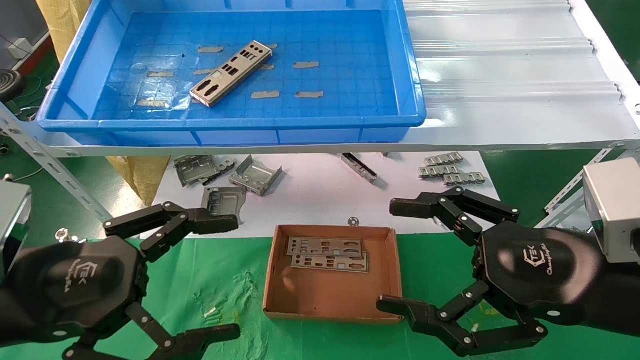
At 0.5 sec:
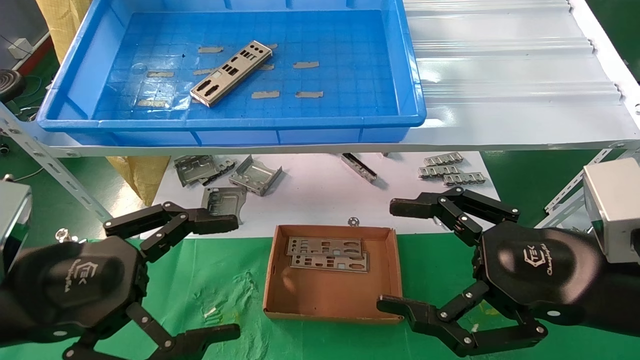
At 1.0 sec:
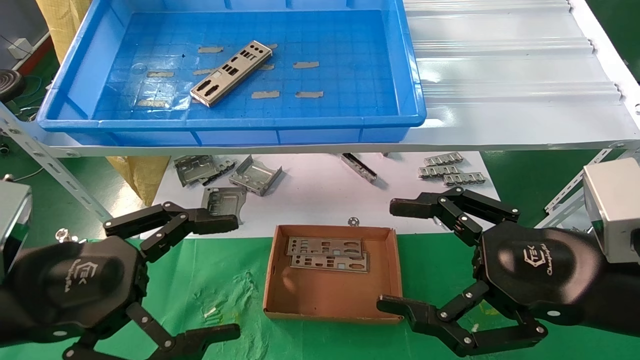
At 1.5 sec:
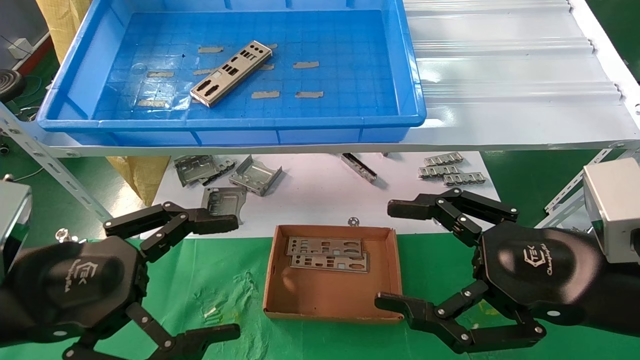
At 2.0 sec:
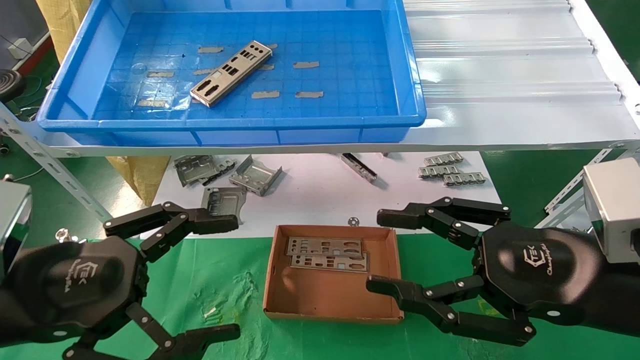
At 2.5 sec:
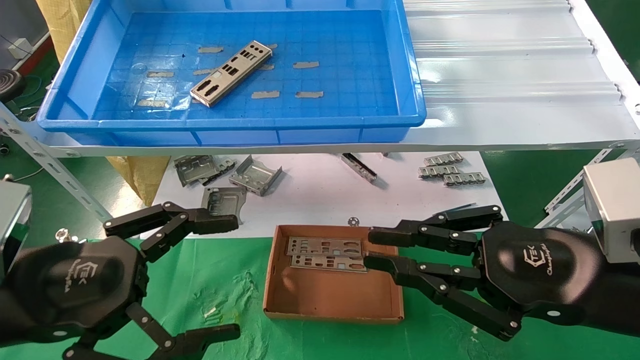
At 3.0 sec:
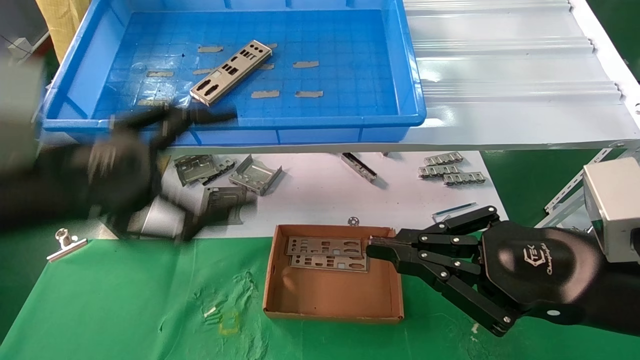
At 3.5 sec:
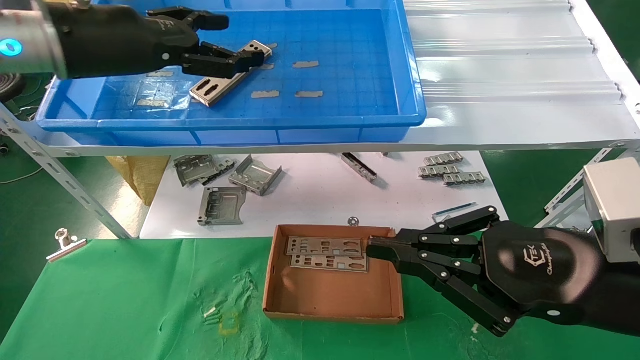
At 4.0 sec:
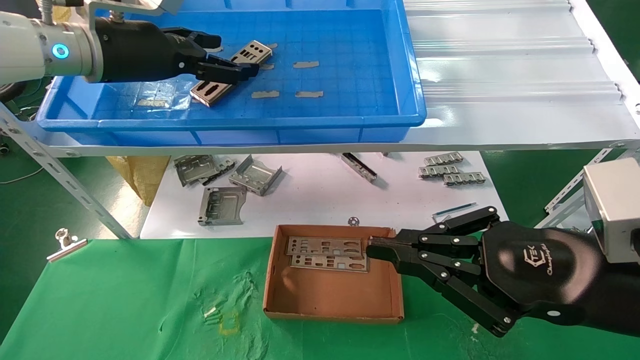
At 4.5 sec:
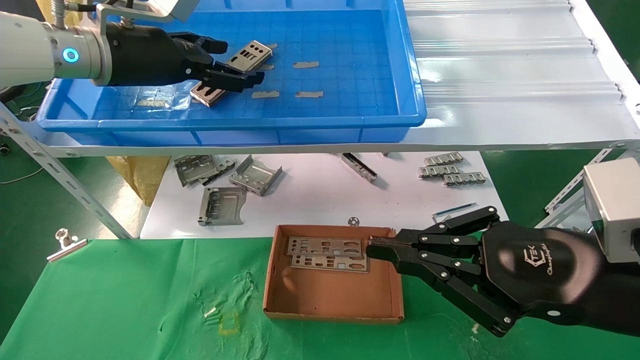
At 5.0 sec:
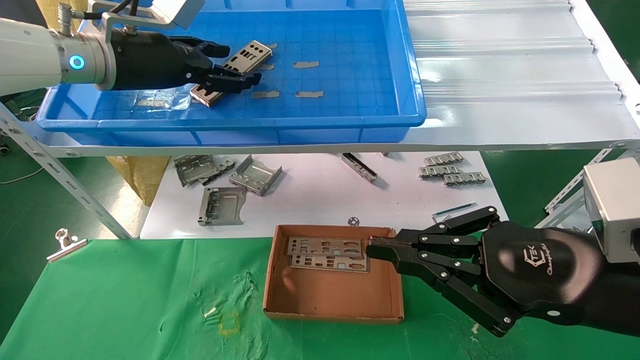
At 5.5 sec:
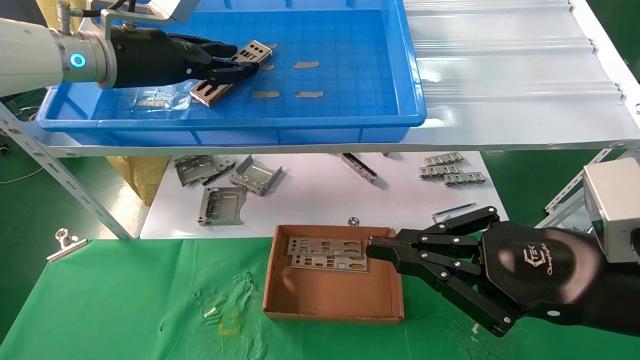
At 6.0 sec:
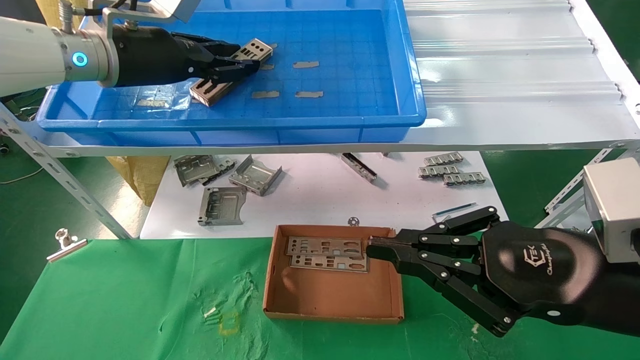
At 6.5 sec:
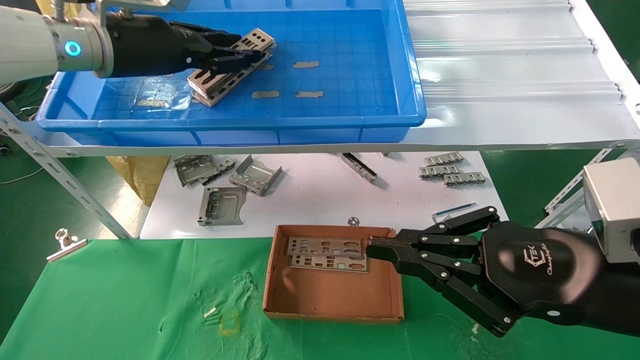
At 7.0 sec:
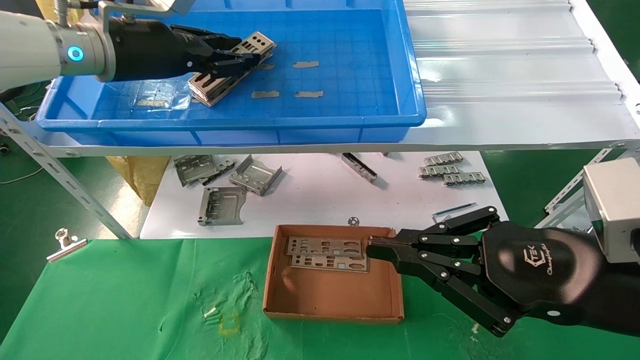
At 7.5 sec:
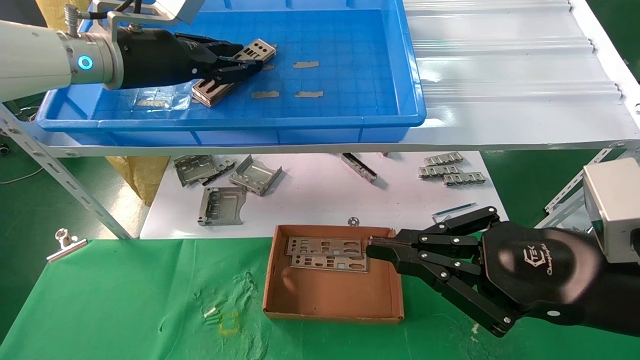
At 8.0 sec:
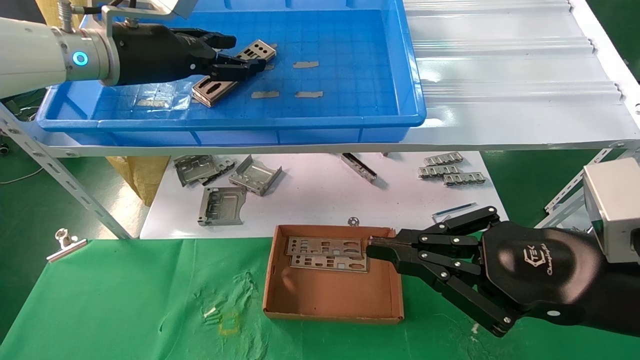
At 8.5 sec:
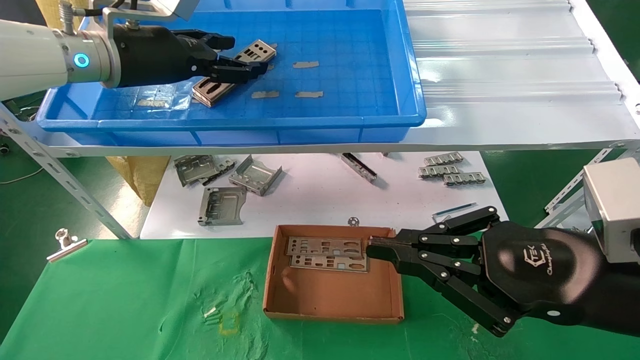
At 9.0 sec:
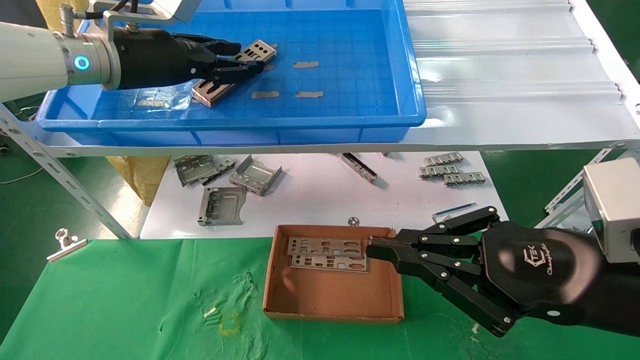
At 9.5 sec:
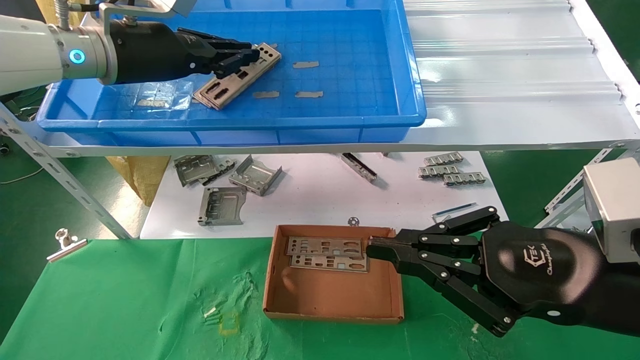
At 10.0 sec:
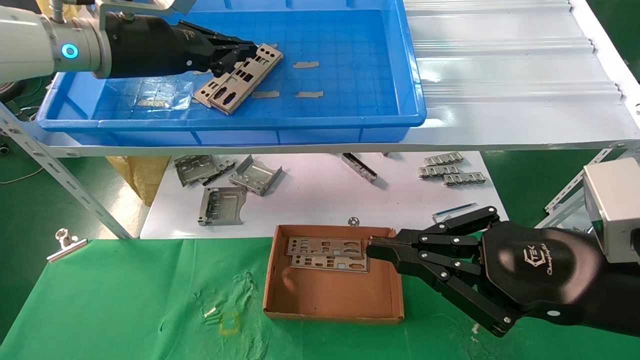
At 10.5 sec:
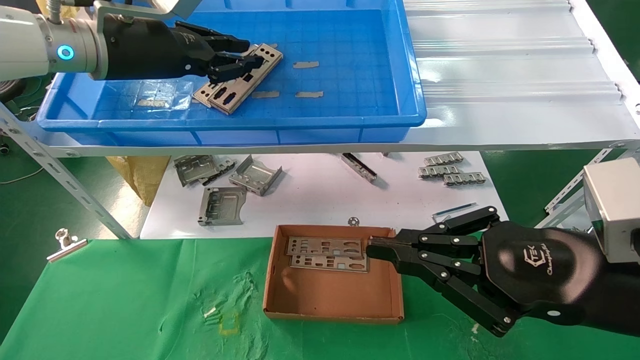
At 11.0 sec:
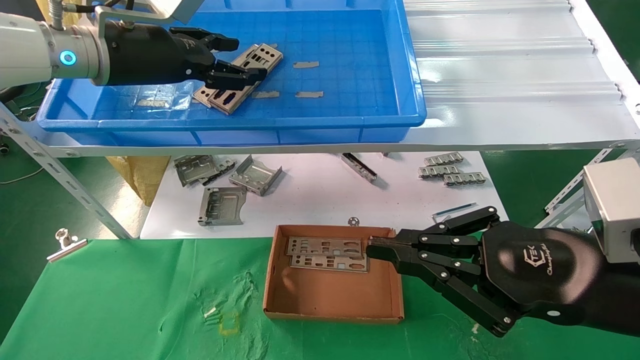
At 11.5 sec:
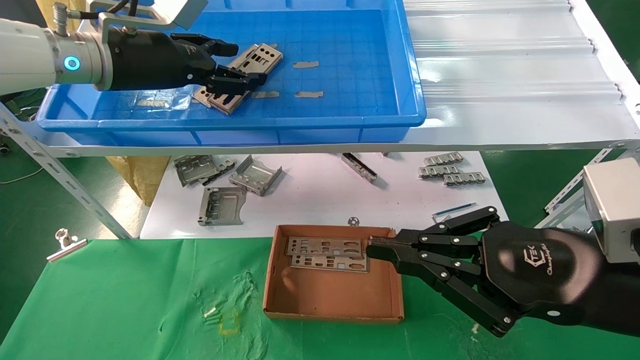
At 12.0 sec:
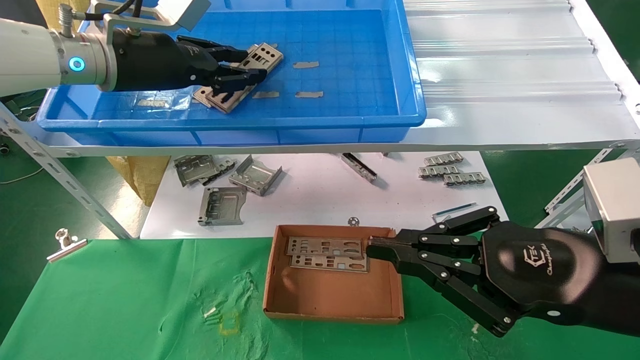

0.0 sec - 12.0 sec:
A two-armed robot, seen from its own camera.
Task of the whole recording: pick up the parts on the tray and put them in the cardboard box.
0.0 sec - 2.0 sec: The two grippers keep their place.
2.0 sec - 4.0 sec: The left gripper goes some 30 cm forward and upward; the right gripper closes up.
4.0 sec - 6.0 sec: The left gripper closes up.
6.0 sec - 8.0 sec: The grippers make only small movements.
8.0 sec - 10.0 sec: The left gripper closes.
10.0 sec - 12.0 sec: The left gripper opens.

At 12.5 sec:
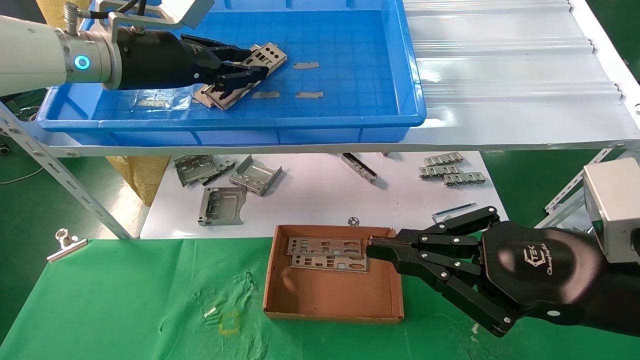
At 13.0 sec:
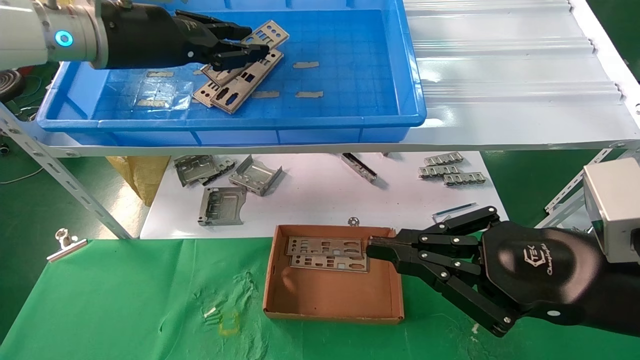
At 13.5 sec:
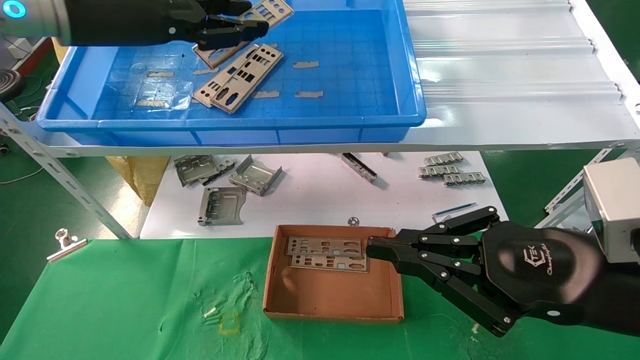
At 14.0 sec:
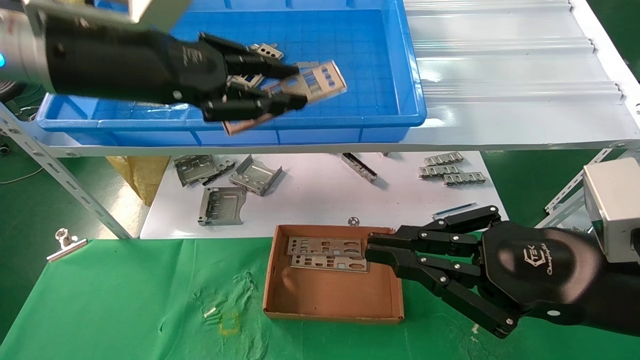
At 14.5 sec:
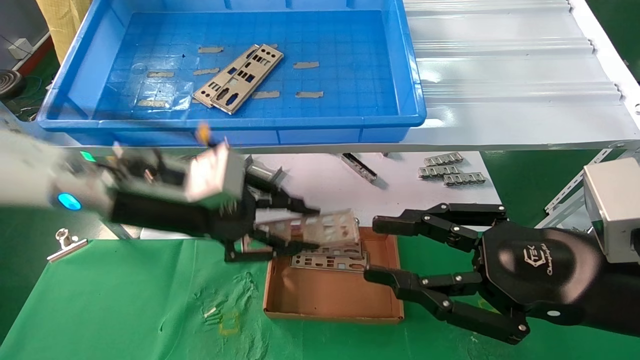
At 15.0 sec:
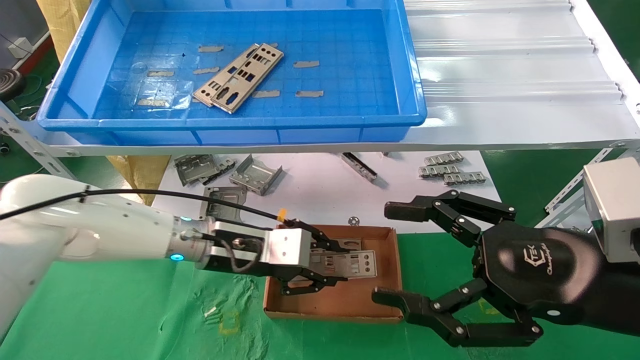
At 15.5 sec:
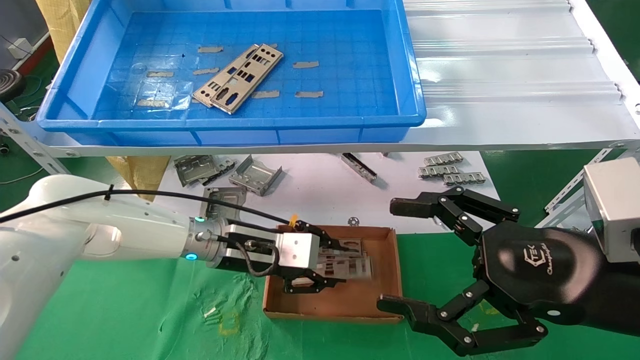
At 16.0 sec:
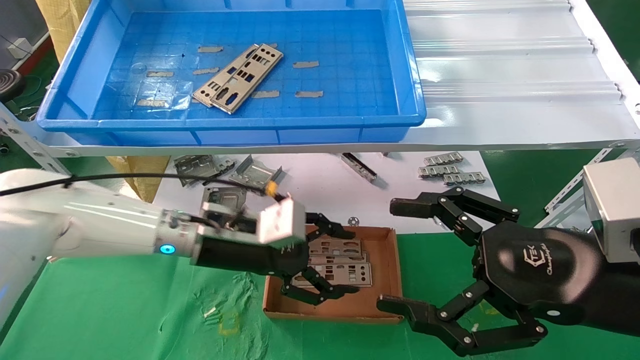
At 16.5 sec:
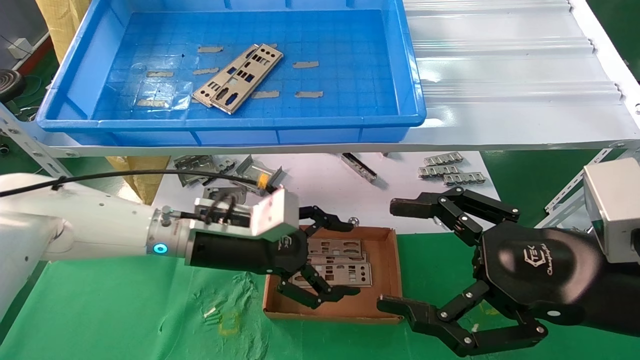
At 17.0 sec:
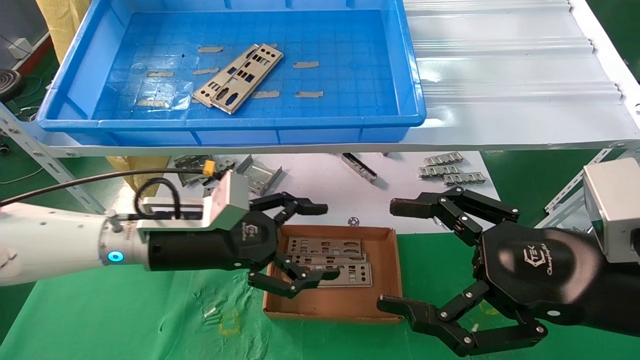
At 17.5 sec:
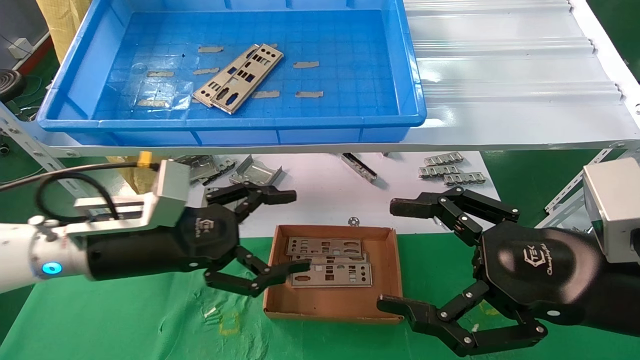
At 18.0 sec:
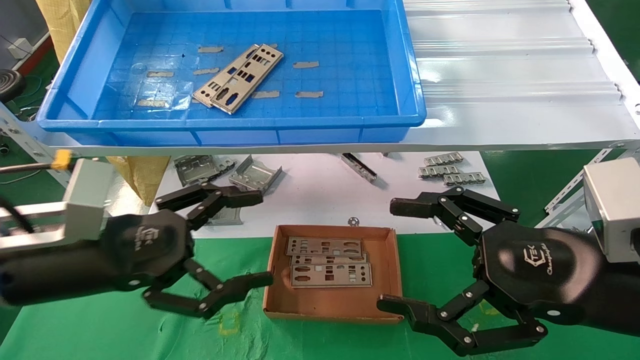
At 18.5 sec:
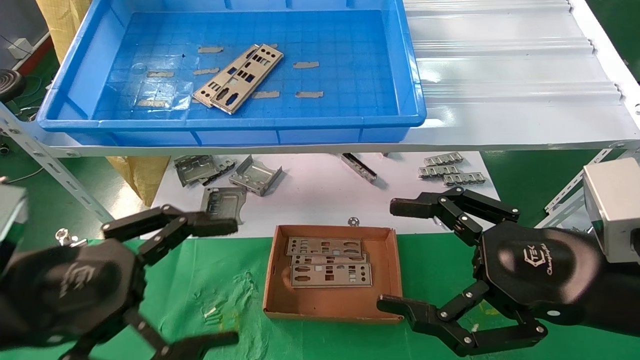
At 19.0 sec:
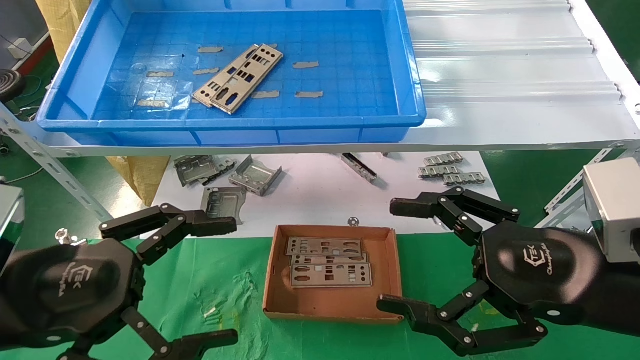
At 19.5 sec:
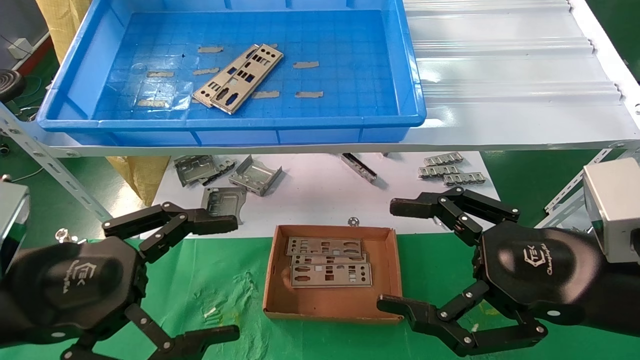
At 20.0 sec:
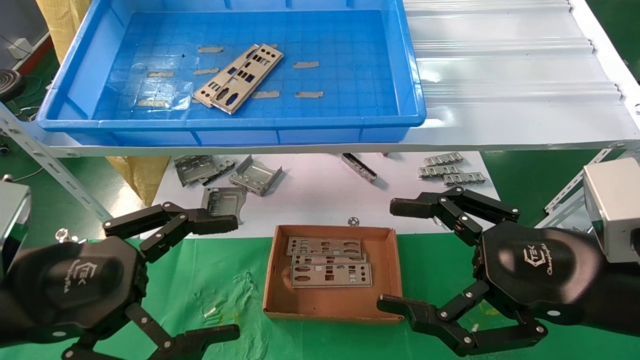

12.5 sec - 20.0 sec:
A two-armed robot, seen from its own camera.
Task of the whole recording: pick up the parts on the tray and put them in the cardboard box.
Step, 12.5 sec - 15.5 sec: Place the IO bracket into the ingredient slot.
12.5 sec - 14.5 sec: The left gripper is displaced downward and backward by approximately 15 cm.
14.5 sec - 16.5 sec: The left gripper moves downward, some 10 cm, and opens up, while the right gripper opens up.
16.5 sec - 18.0 sec: The left gripper travels to the left and backward by approximately 15 cm.
18.0 sec - 20.0 sec: The left gripper goes some 5 cm backward.
